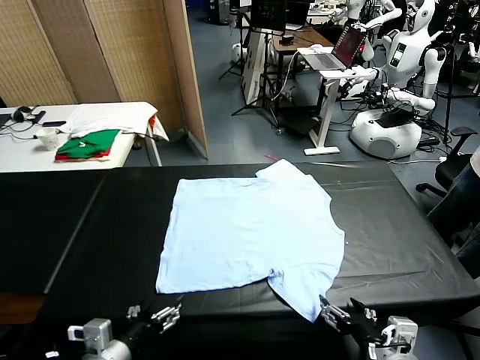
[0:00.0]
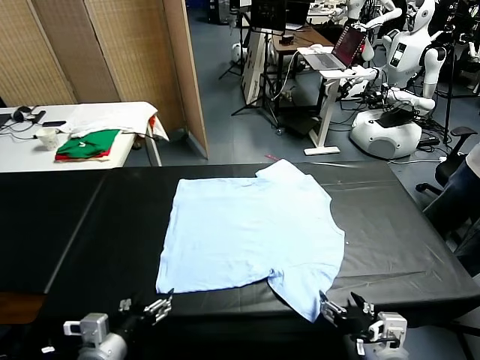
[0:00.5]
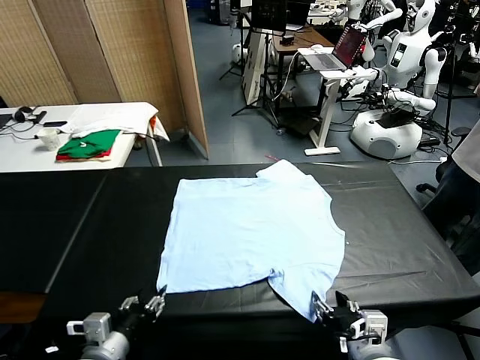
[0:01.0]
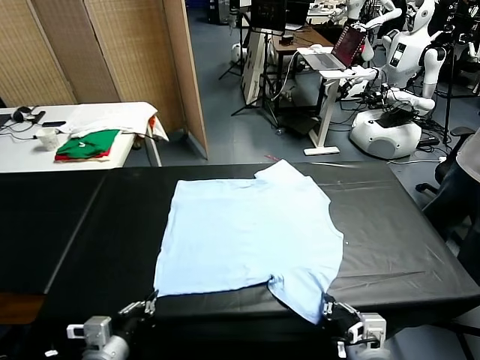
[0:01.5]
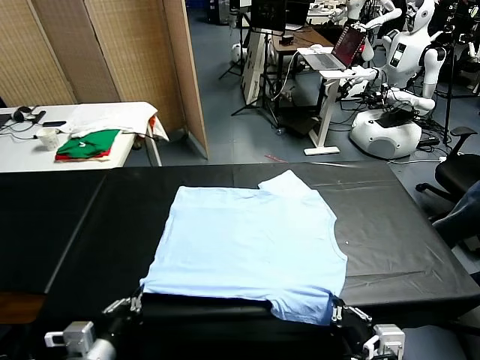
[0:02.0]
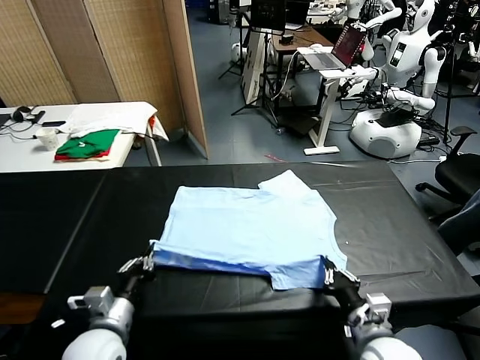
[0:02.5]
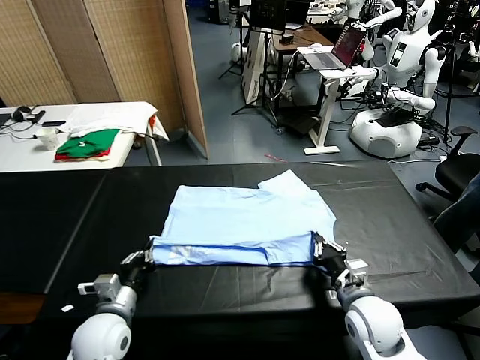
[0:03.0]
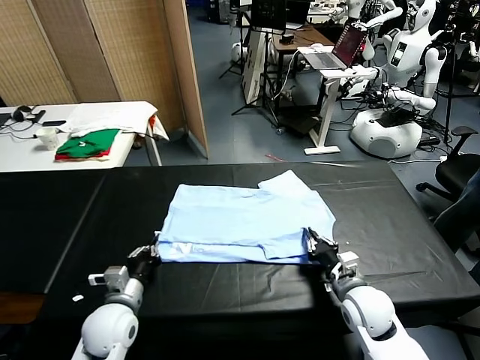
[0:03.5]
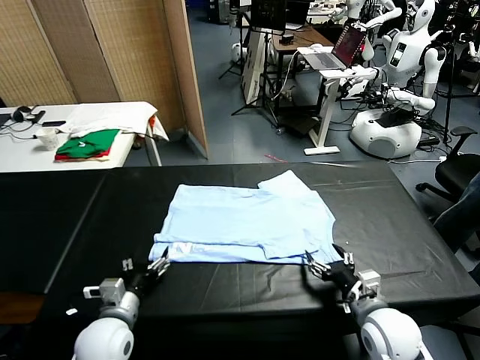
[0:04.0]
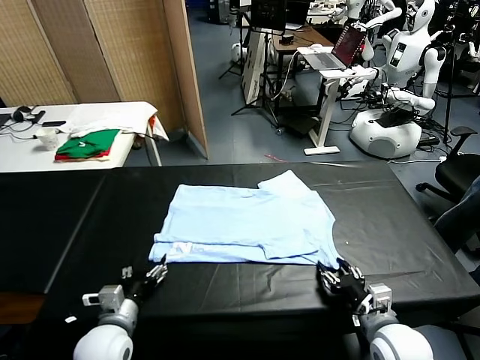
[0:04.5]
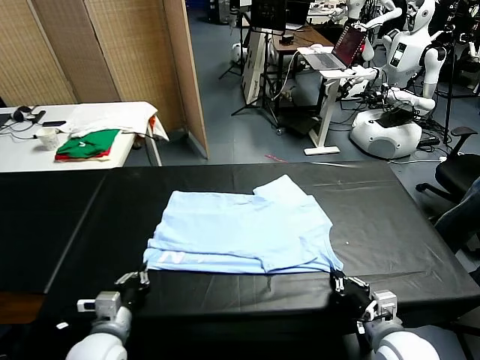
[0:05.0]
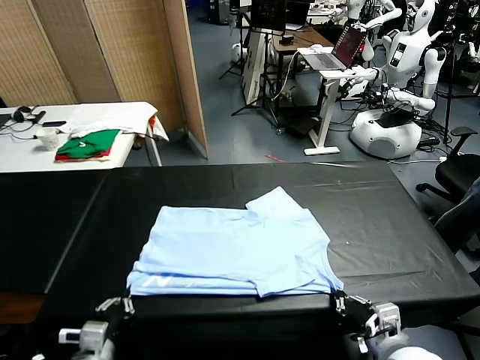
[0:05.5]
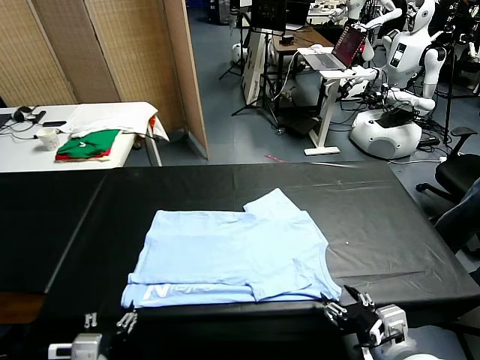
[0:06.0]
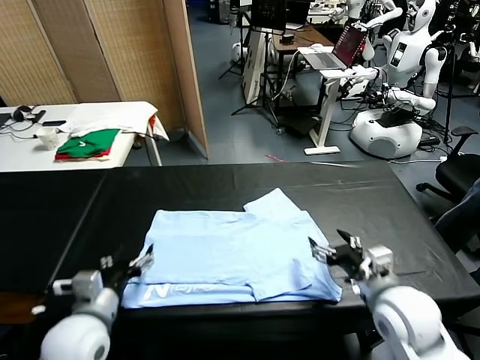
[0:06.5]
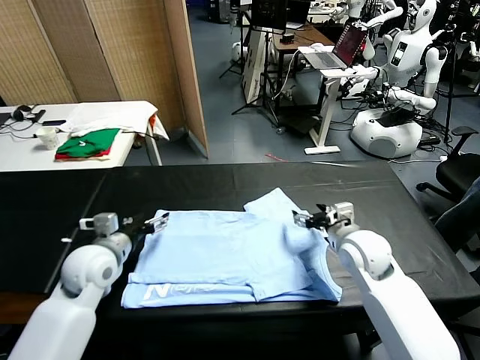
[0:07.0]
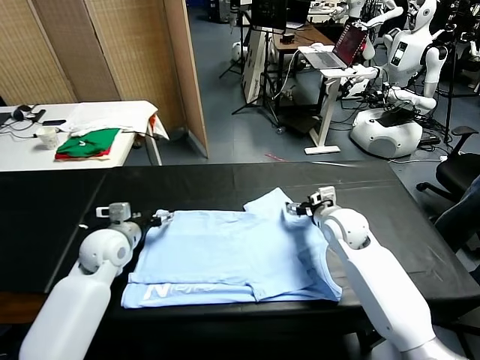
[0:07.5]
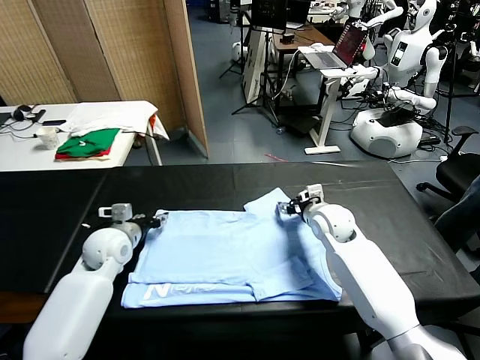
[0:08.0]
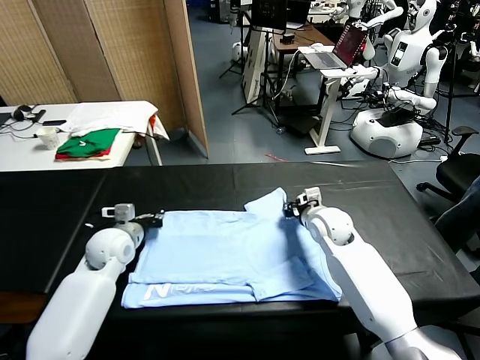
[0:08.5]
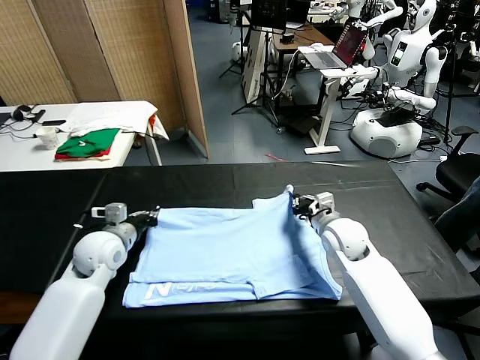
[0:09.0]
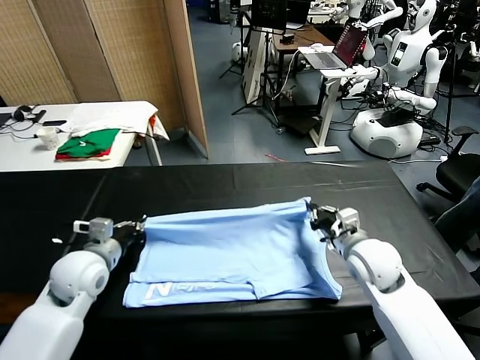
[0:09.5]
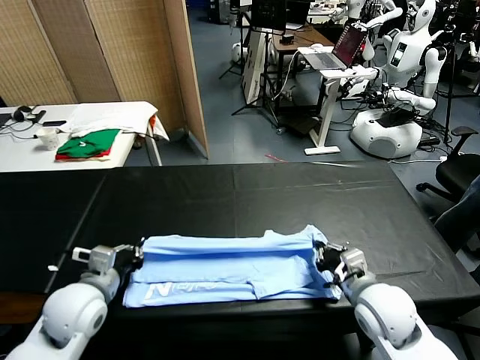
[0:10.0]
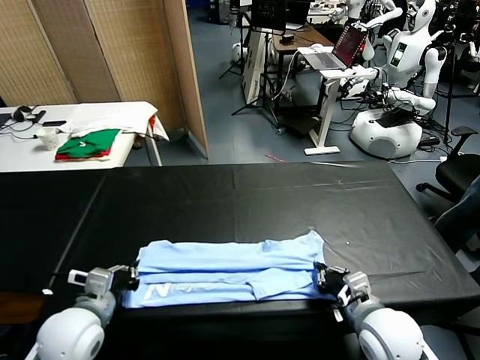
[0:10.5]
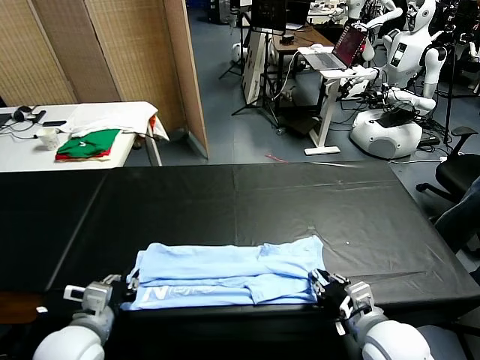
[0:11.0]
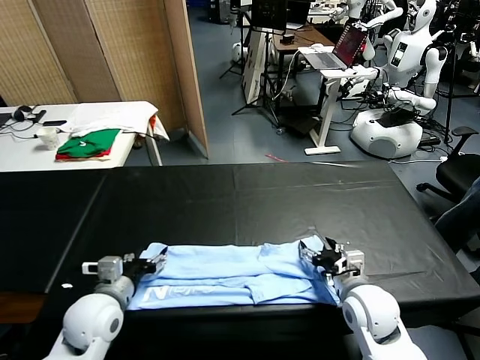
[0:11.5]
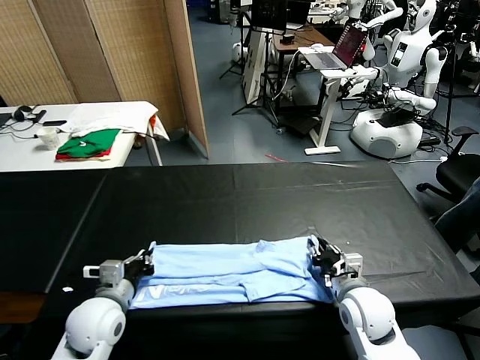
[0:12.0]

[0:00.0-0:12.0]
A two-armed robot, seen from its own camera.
Task of the whole recording: fold and organize the clothes.
Step, 0.0 to 1.5 s: use both grippers simultaneously to clamp the lower edge of the clothing fabric.
Step, 2.0 to 3.5 s: use both grippers to drag the lower edge of the fabric forward and fold it over the upper edge.
Step, 4.0 to 5.5 s: Drag the clothes downward with both gripper.
Step, 6.5 to 8.5 s: use both grippers simultaneously to clamp the upper edge of the clothing fabric.
Step, 9.0 to 11.0 s: use both grippers to drag the upper edge of the fabric backward and fold it over the lower edge.
2.0 to 4.0 s: The left gripper travels forward and downward by approximately 10 cm, and opens. The right gripper heads forward, covering approximately 5 cm, and opens its fingers.
4.0 to 6.0 s: The left gripper is displaced backward and upward by roughly 10 cm, and closes, then opens again; the right gripper heads upward, covering approximately 10 cm, and closes and opens again.
6.0 to 8.0 s: Both grippers travel together forward, about 25 cm. The left gripper closes. The right gripper closes up.
8.0 to 10.0 s: The grippers both shift backward by about 20 cm.
10.0 to 12.0 s: The left gripper opens its fingers; the right gripper moves forward, roughly 5 cm, and opens.

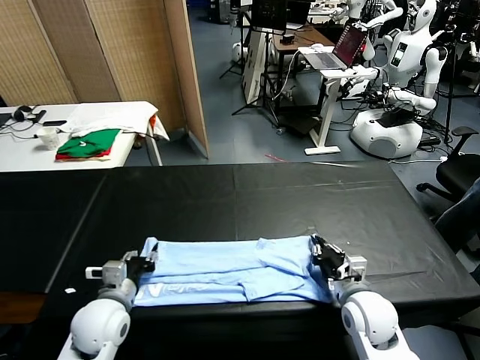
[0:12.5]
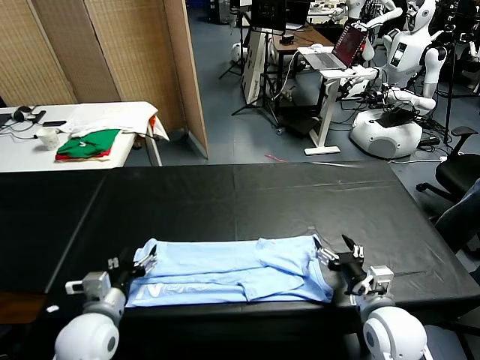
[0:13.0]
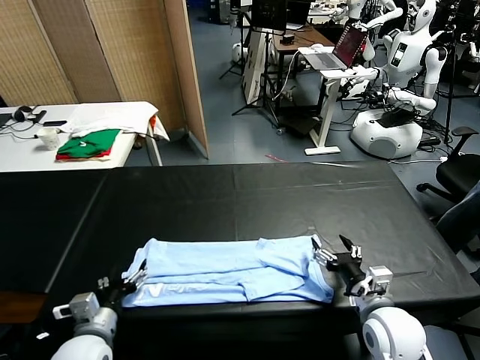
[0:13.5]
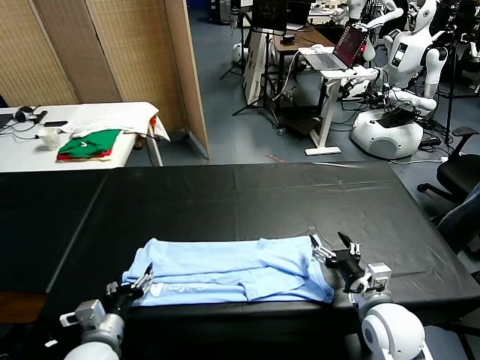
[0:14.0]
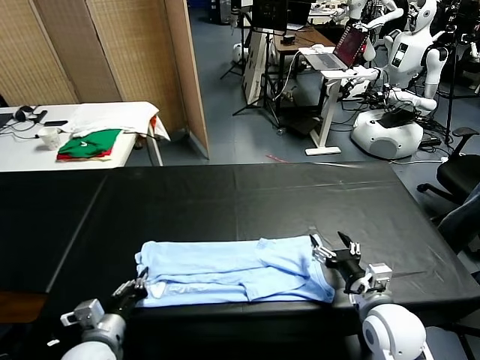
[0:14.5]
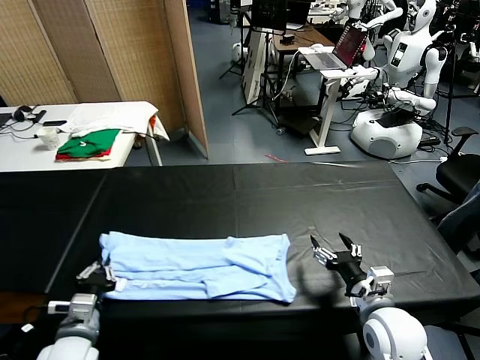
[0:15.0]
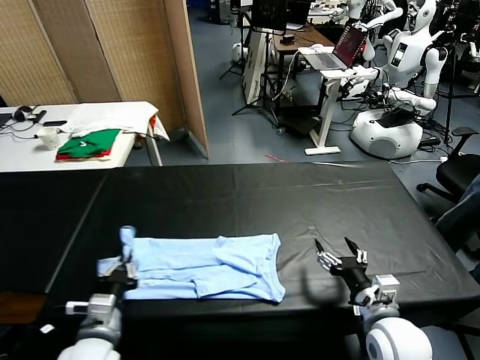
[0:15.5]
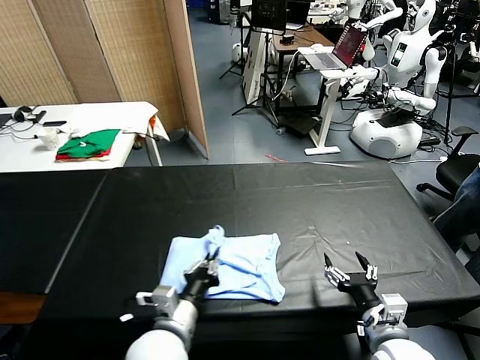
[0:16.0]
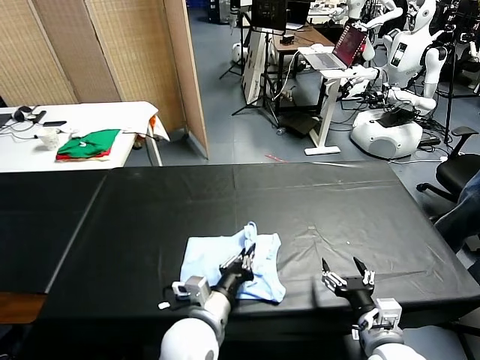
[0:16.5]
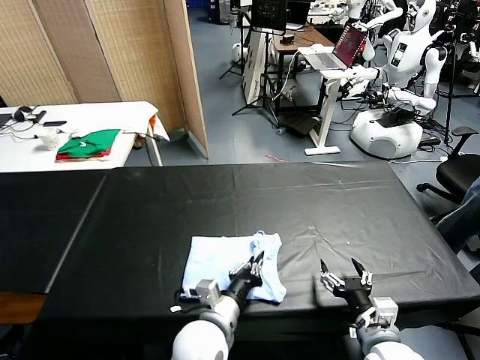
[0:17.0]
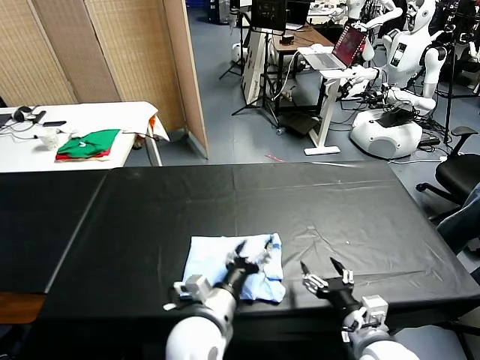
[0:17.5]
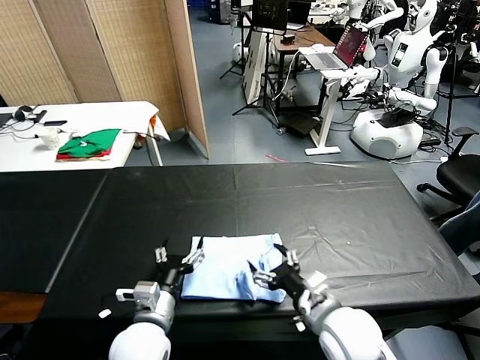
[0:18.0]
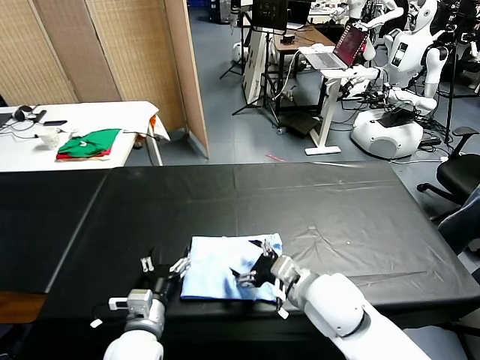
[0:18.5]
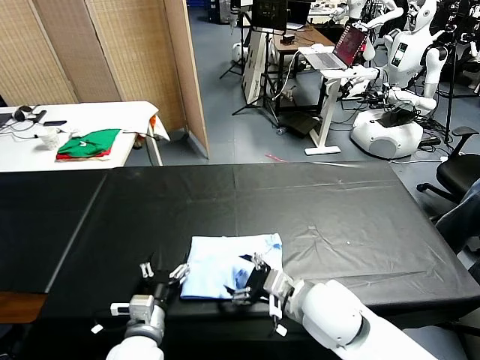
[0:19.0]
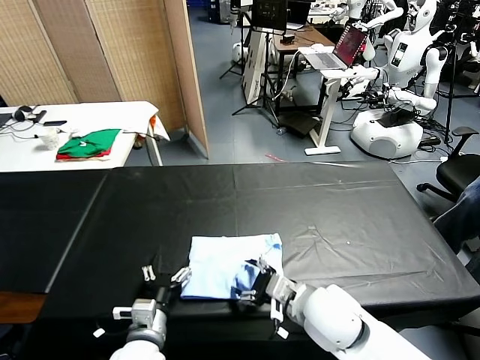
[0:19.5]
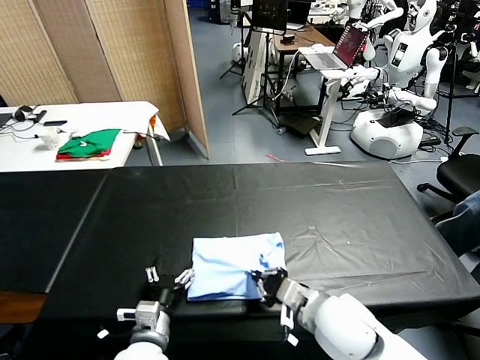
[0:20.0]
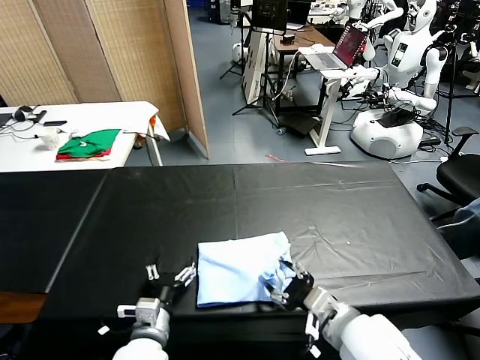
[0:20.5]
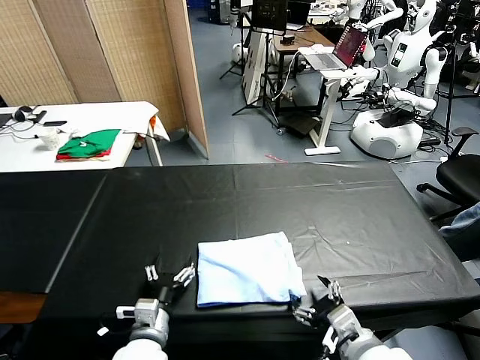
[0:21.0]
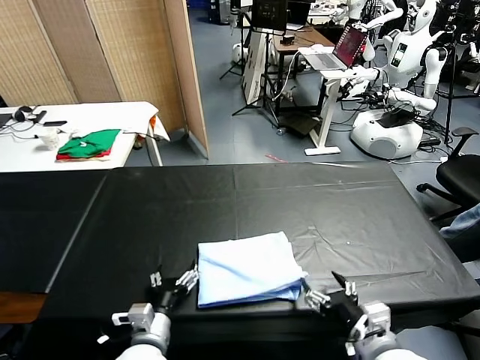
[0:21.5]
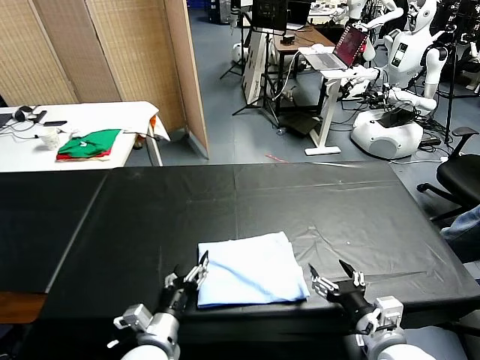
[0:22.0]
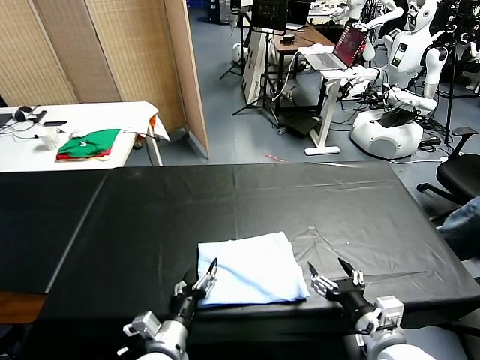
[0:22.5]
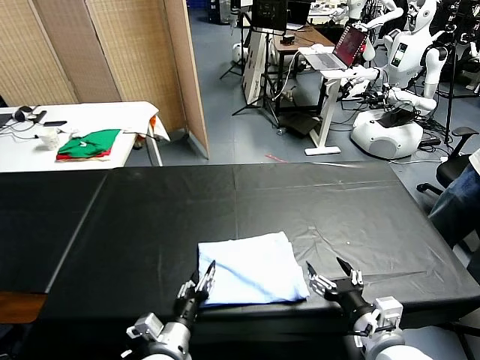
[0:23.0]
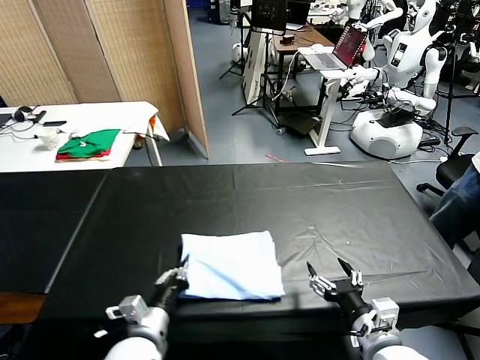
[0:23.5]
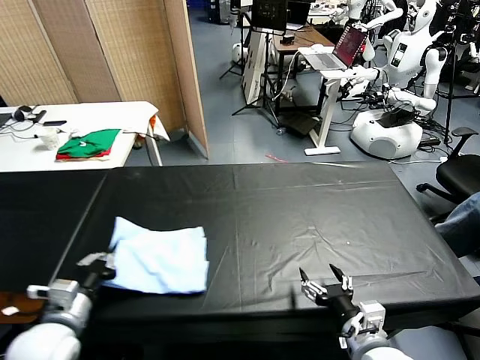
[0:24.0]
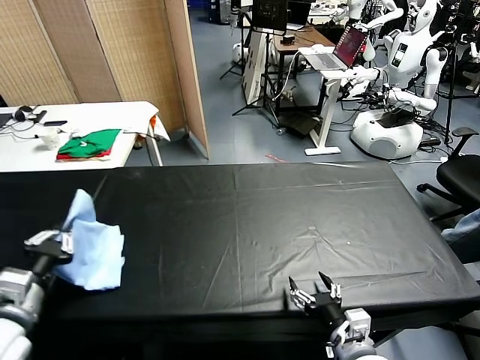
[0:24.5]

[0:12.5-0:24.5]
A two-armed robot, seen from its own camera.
Task of the whole recording: fold and organize the clothes.
Step, 14.0 to 17.5 s: use the left gripper to drag the left edge of the fabric to the left and folds it over the right edge.
12.5 to 14.5 s: The left gripper is displaced backward by approximately 5 cm, and opens up. The right gripper changes place by about 5 cm, and opens.
14.5 to 16.5 s: The right gripper heads backward, covering approximately 5 cm; the left gripper goes roughly 15 cm to the right, and closes up.
16.5 to 18.5 s: The left gripper is displaced to the left by roughly 10 cm, and opens its fingers, while the right gripper goes roughly 15 cm to the left, forward and upward.
18.5 to 20.5 s: The right gripper is displaced backward by about 5 cm, and closes its fingers.
20.5 to 22.5 s: The right gripper travels to the right by about 5 cm, and opens up.
22.5 to 24.5 s: The right gripper shifts by some 5 cm, while the left gripper travels to the left and upward by about 25 cm, and closes up.

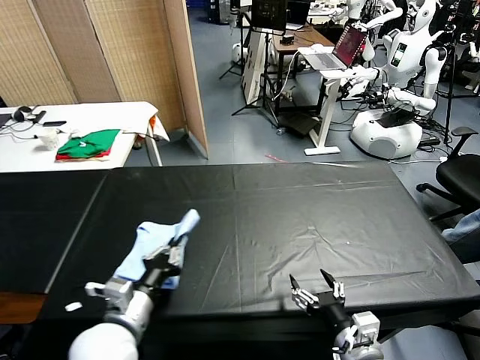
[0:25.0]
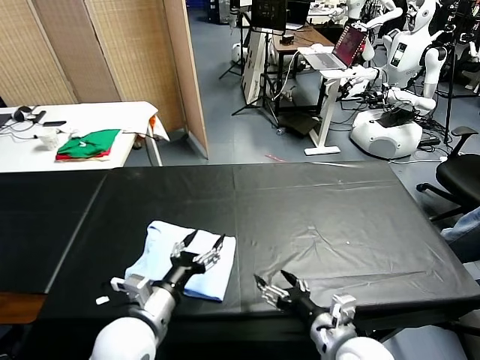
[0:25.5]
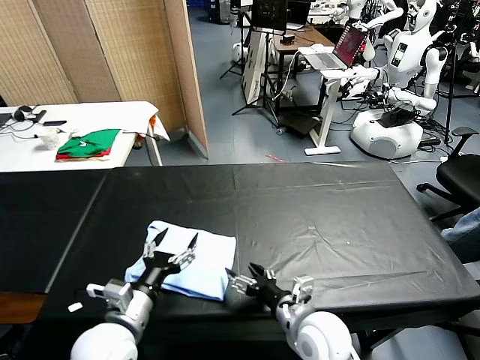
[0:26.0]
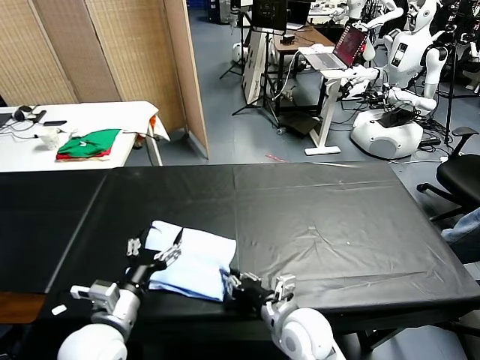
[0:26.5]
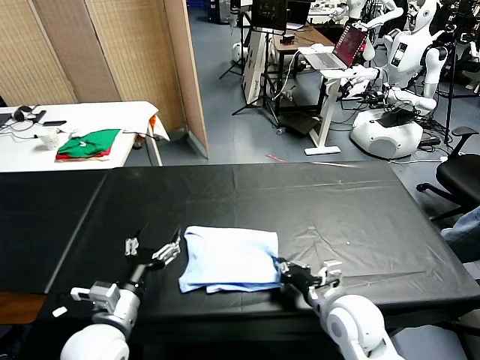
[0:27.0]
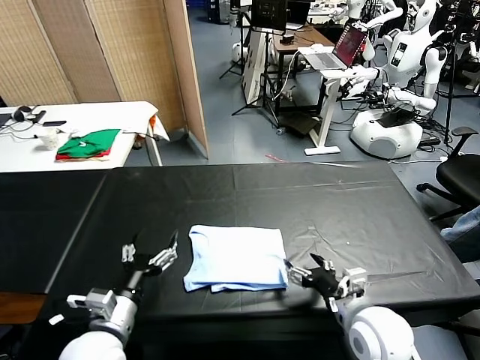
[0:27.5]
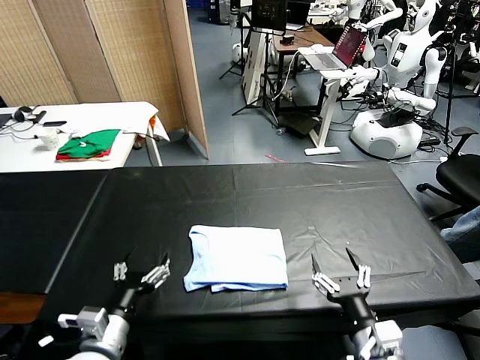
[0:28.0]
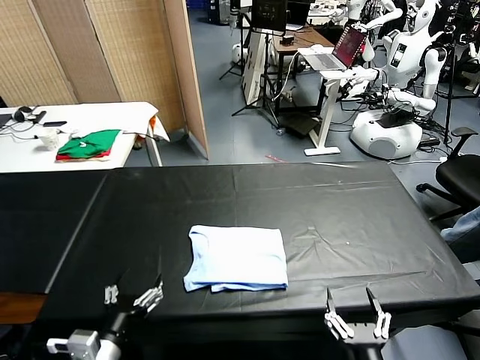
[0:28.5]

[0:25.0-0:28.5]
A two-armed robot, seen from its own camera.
Task of the whole recording: fold and organize the clothes.
Step, 25.5 to 27.0 s: Drag the clothes to the center of the table.
25.0 to 27.0 s: The right gripper shifts roughly 10 cm forward, and closes. Meanwhile the left gripper opens.
27.0 to 28.5 s: The right gripper heads backward, covering roughly 20 cm, and opens up; the left gripper shifts about 5 cm backward.
